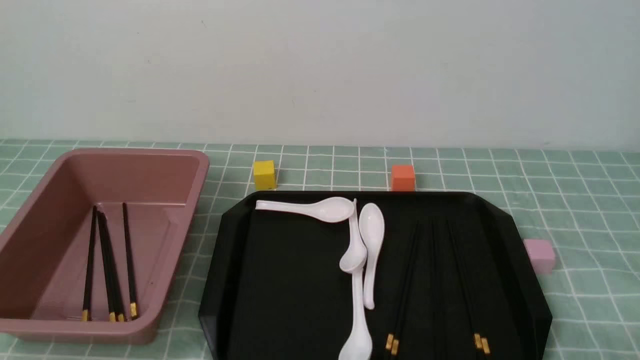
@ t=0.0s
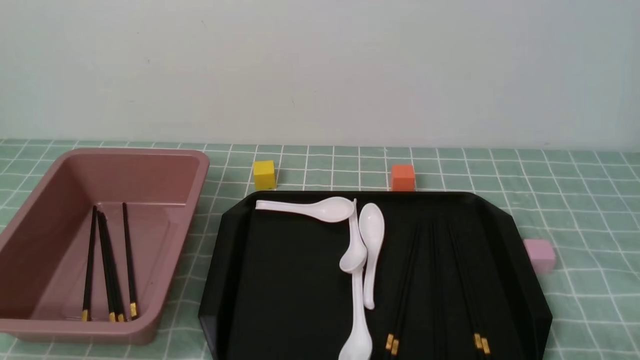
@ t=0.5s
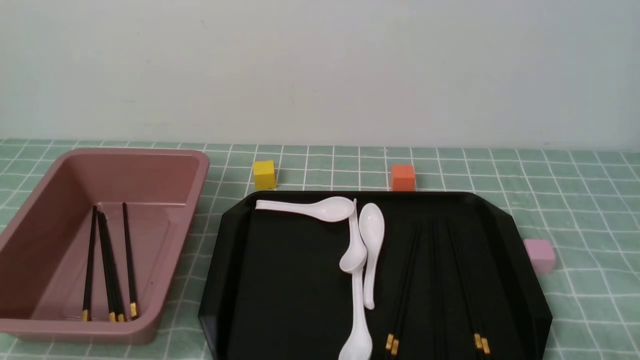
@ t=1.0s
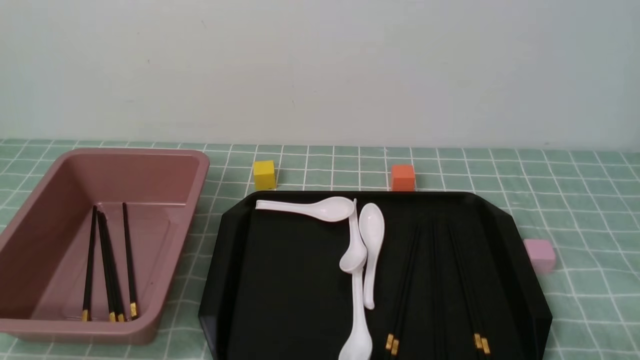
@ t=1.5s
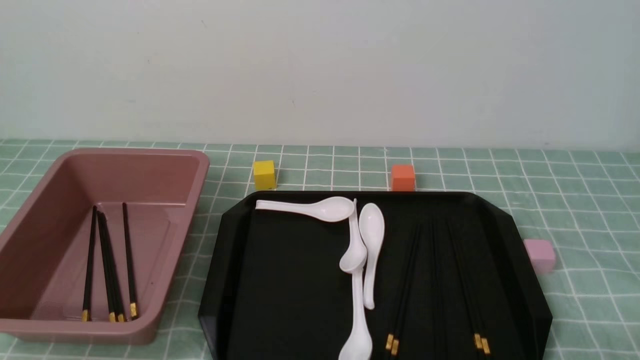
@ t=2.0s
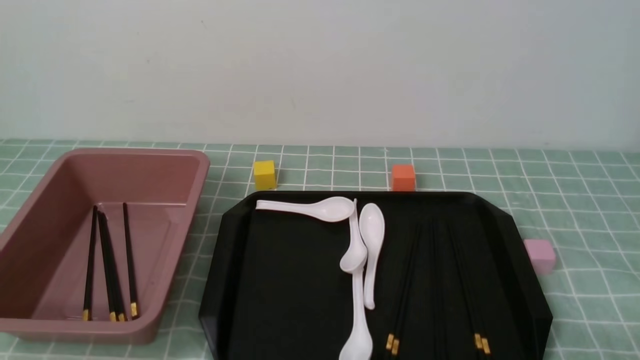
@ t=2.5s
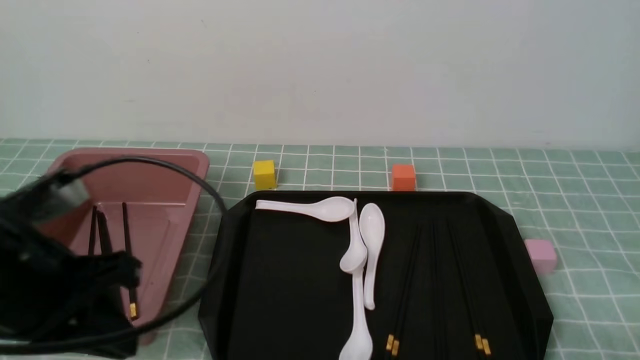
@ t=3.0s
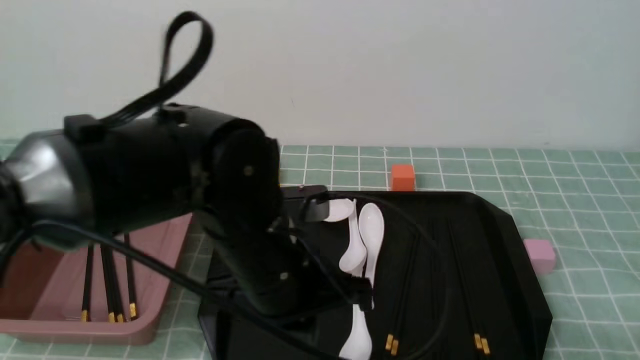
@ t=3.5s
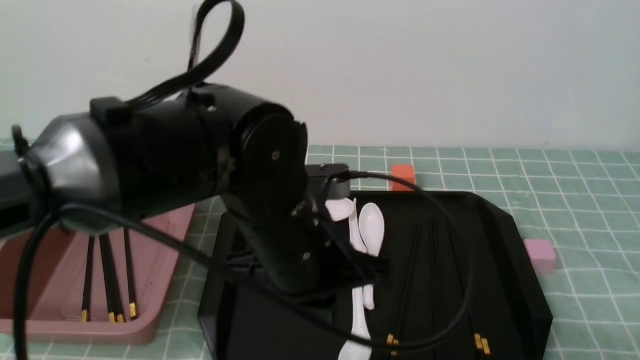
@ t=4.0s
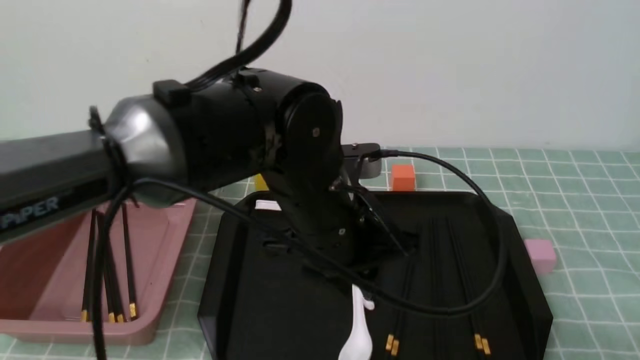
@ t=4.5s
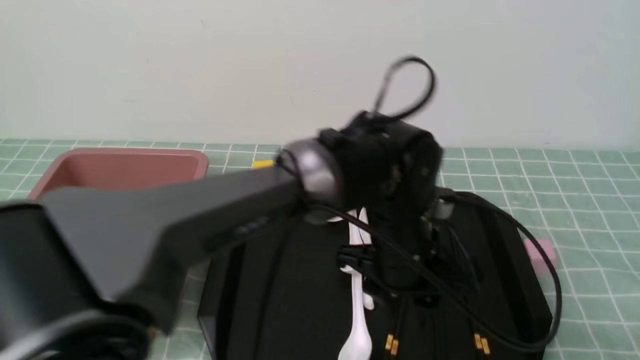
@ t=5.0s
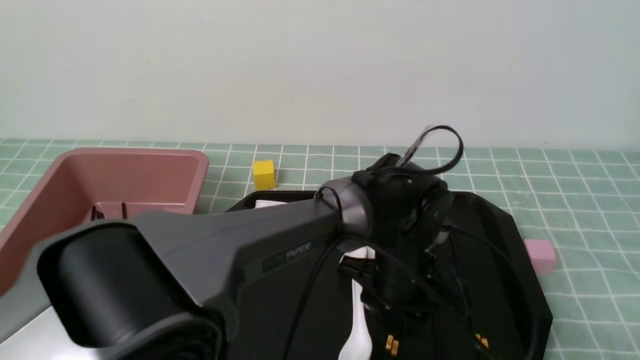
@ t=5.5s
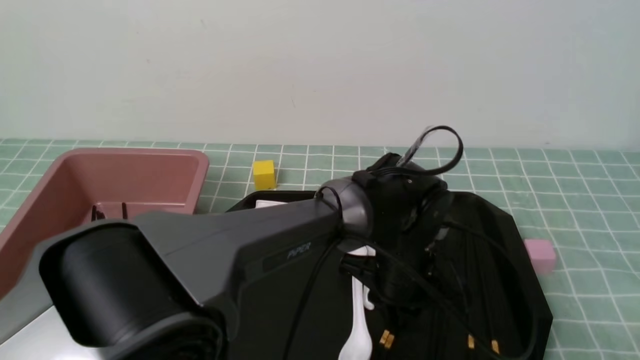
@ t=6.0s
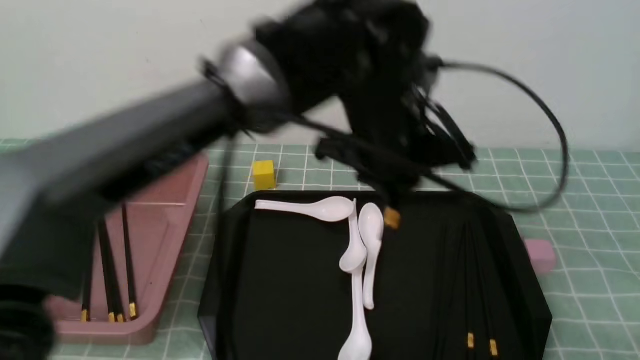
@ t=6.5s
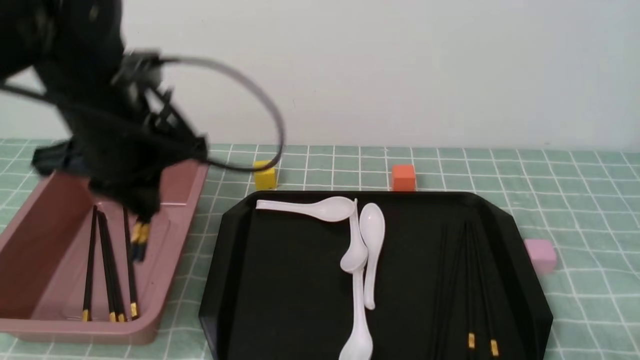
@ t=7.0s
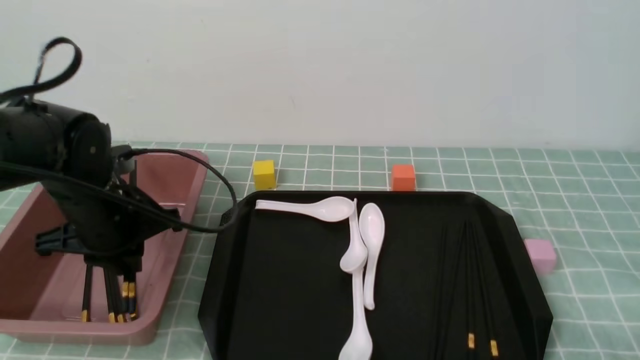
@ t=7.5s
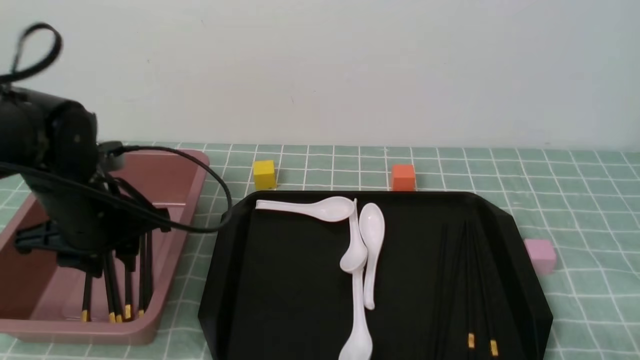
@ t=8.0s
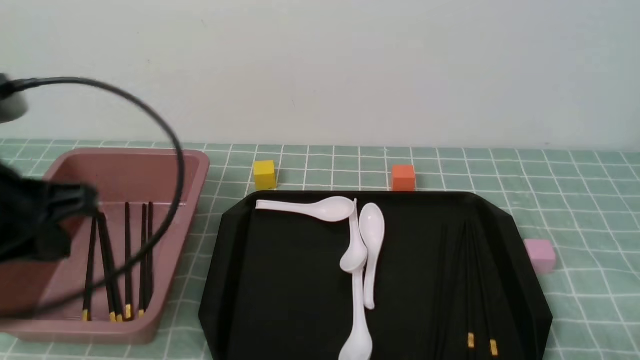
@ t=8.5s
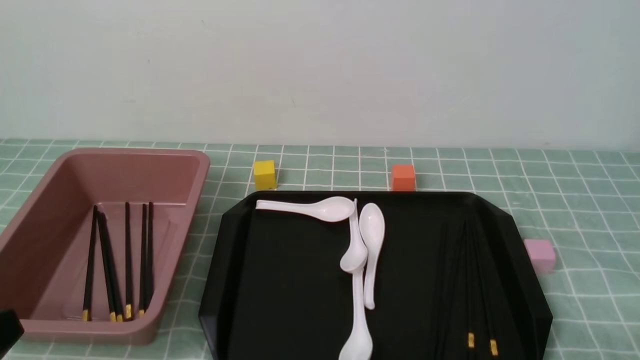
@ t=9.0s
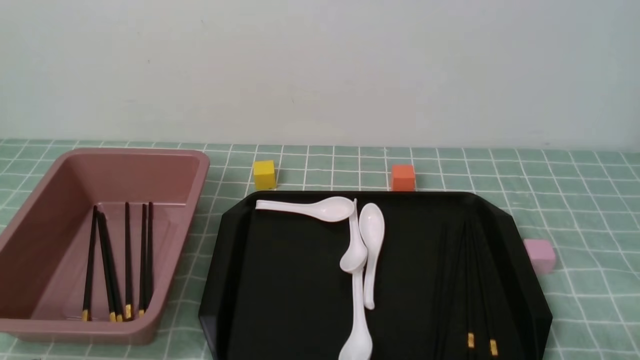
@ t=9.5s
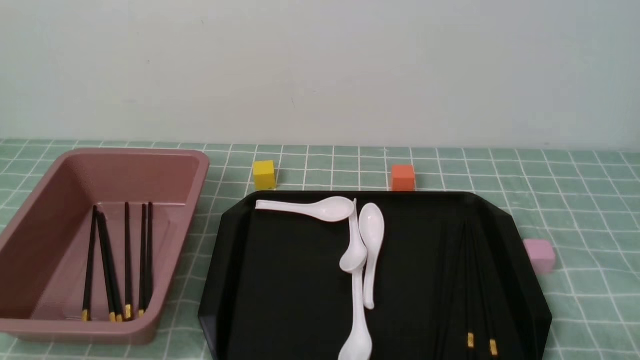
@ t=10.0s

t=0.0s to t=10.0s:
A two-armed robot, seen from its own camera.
Step, t=0.0s to t=6.5s: use the left arm to grab a pair of chopsticks.
Step, t=7.0s to t=8.0s: use the left arm to put the chopsticks into the lunch box.
t=2.0s to t=4.0s: The left gripper travels to the right, forward and upward by approximately 30 cm.
t=4.0s to t=6.0s: The left gripper goes about 20 cm to the right, downward and forward, and opens, then closes once more.
t=6.0s to t=8.0s: The left gripper is displaced to the left by about 30 cm, and opens up.
t=8.0s to t=10.0s: The left gripper moves backward, some 25 cm, and closes up.

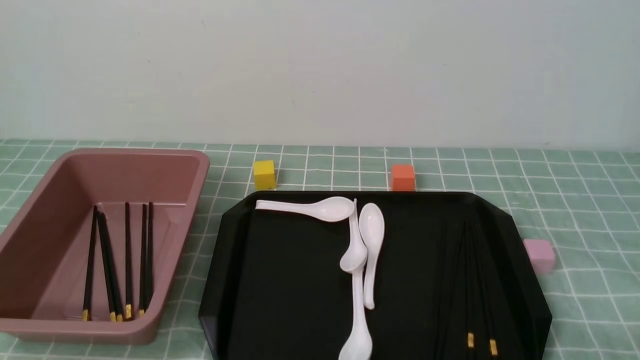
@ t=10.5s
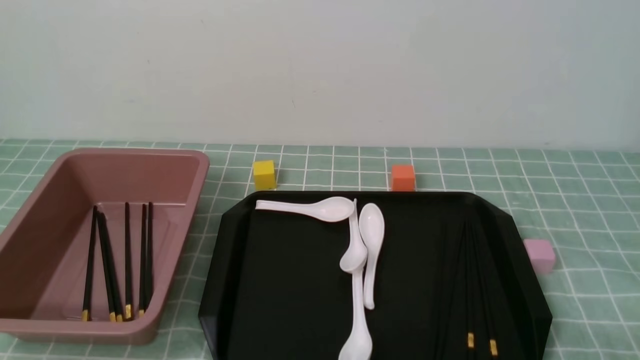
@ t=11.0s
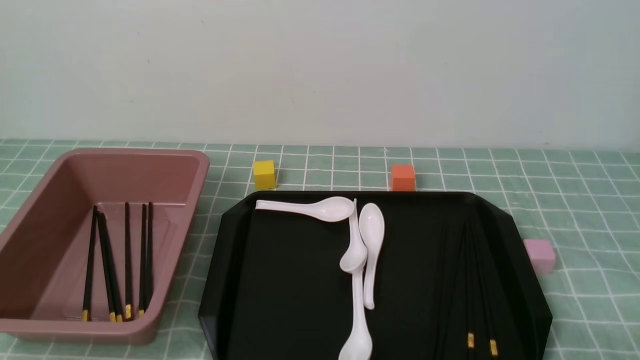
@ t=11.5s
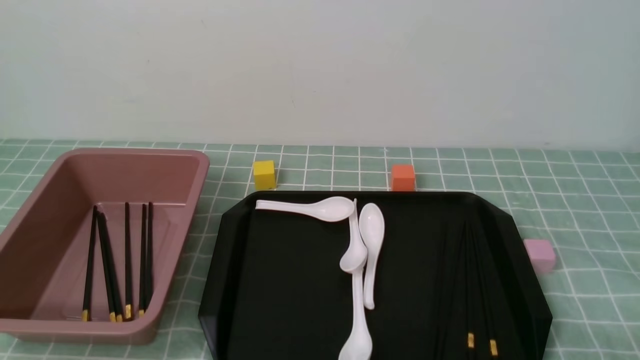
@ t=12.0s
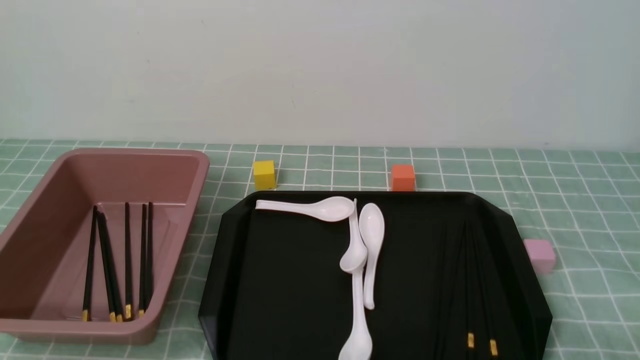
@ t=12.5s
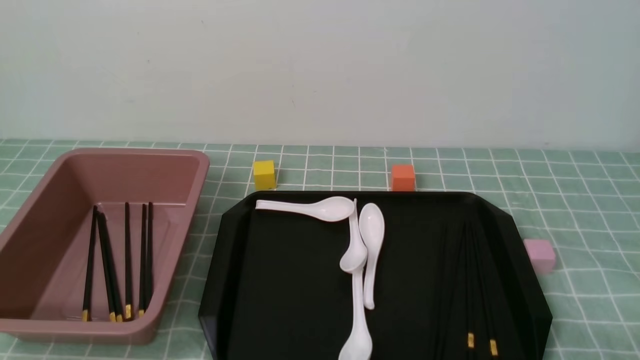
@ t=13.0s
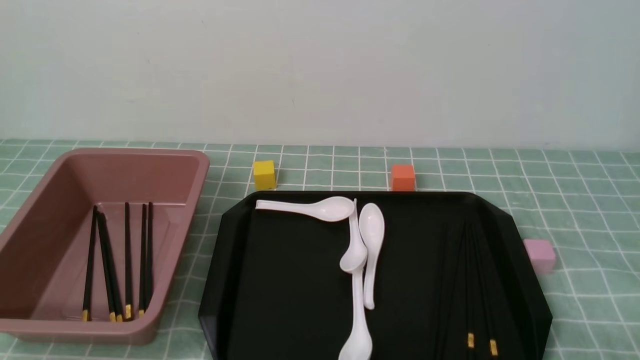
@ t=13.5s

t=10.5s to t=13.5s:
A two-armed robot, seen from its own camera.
t=10.5s to t=13.5s: Neither gripper changes place.
